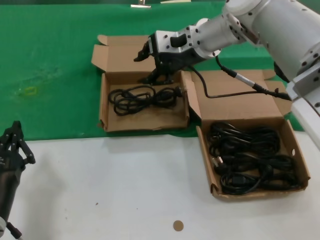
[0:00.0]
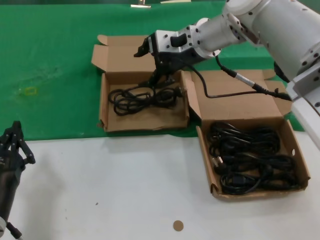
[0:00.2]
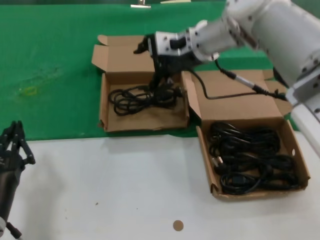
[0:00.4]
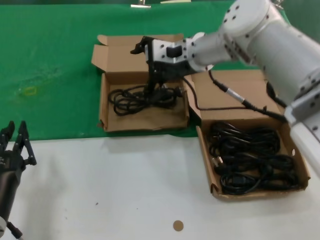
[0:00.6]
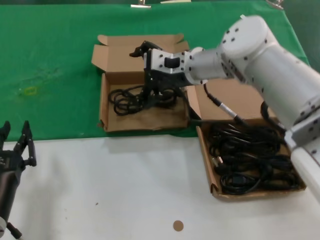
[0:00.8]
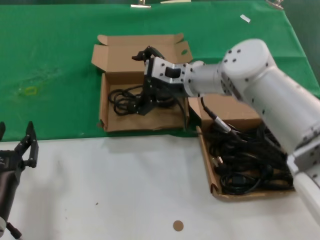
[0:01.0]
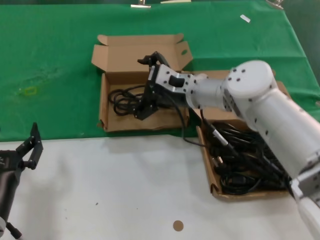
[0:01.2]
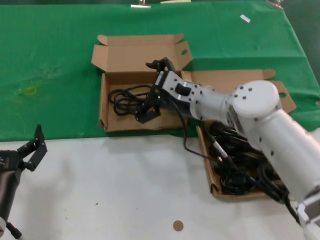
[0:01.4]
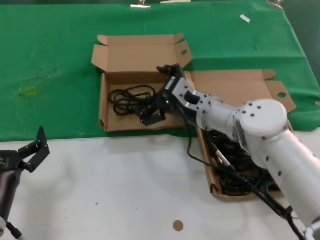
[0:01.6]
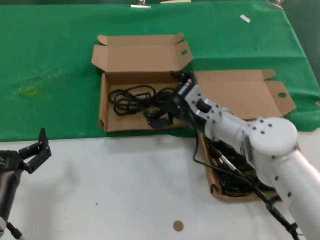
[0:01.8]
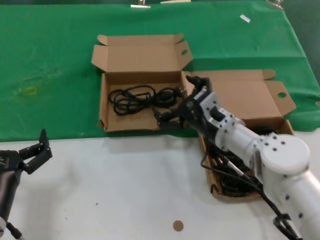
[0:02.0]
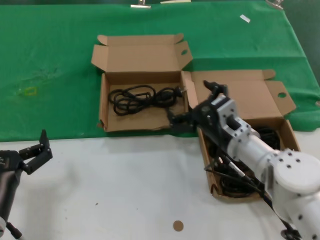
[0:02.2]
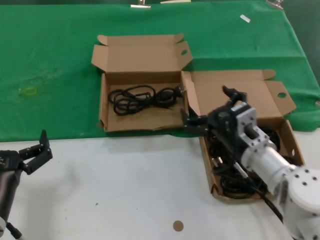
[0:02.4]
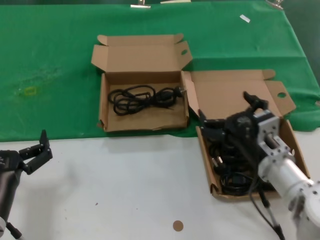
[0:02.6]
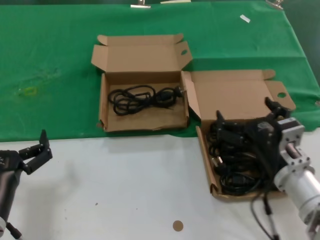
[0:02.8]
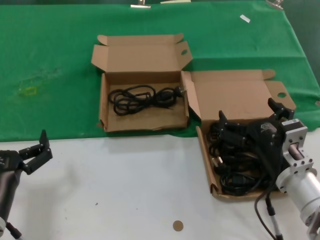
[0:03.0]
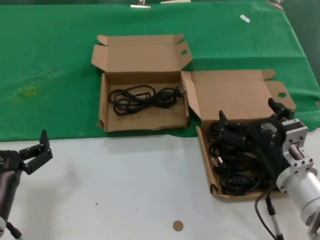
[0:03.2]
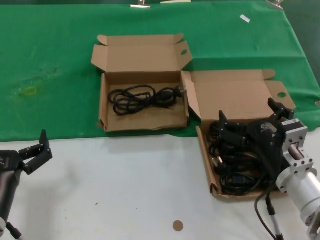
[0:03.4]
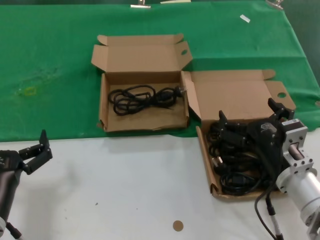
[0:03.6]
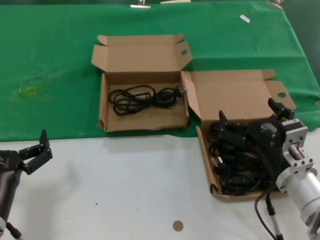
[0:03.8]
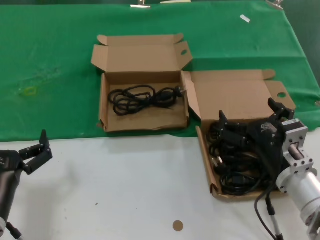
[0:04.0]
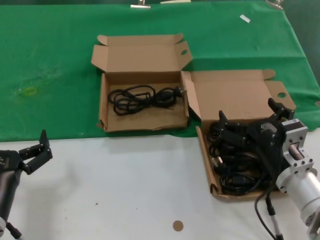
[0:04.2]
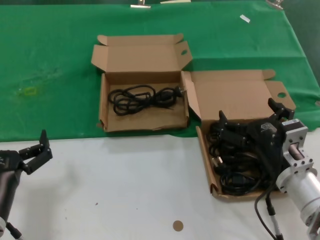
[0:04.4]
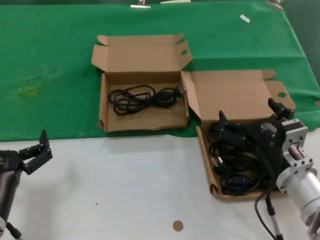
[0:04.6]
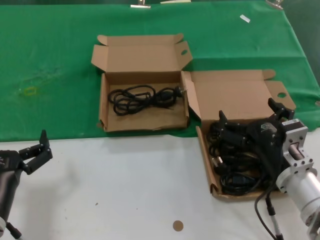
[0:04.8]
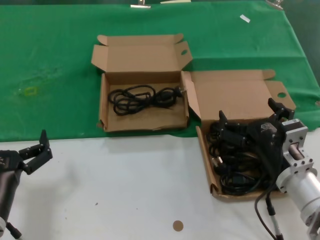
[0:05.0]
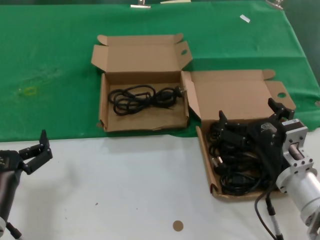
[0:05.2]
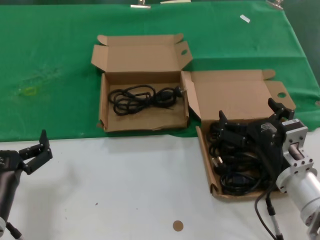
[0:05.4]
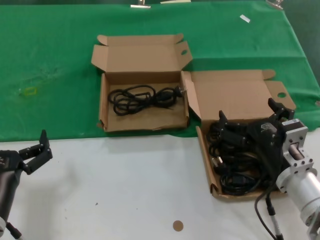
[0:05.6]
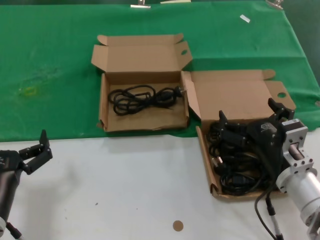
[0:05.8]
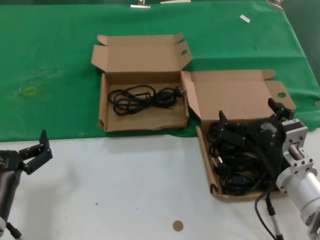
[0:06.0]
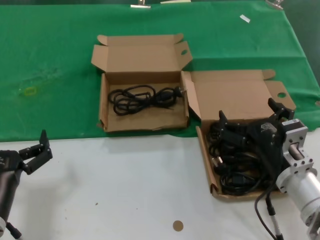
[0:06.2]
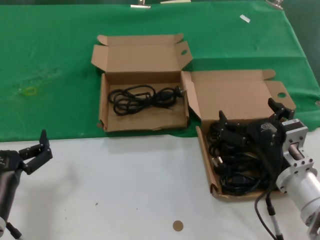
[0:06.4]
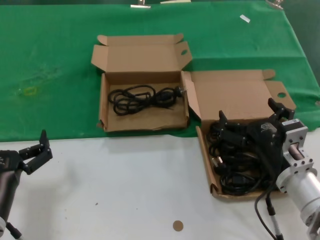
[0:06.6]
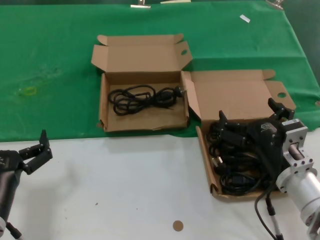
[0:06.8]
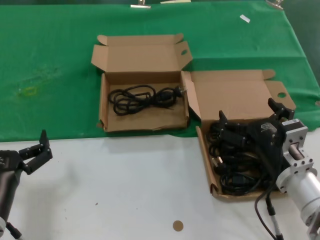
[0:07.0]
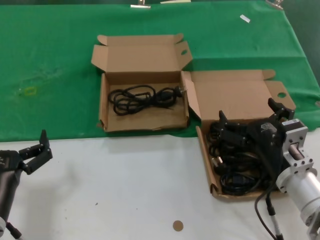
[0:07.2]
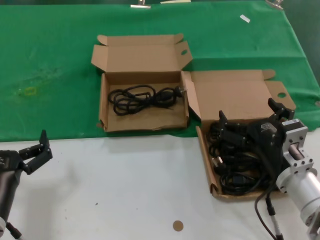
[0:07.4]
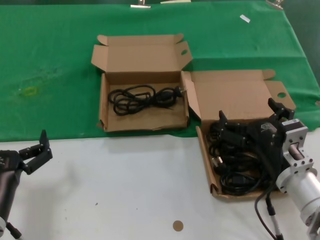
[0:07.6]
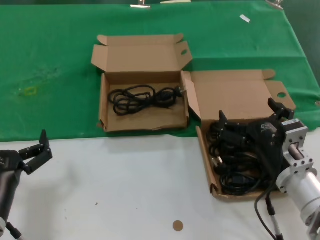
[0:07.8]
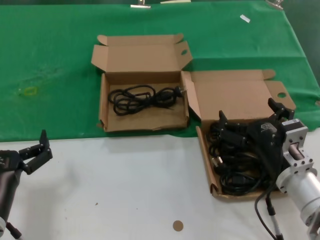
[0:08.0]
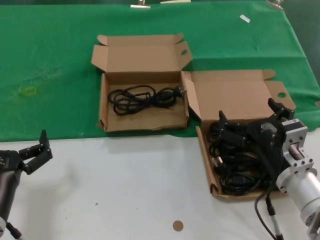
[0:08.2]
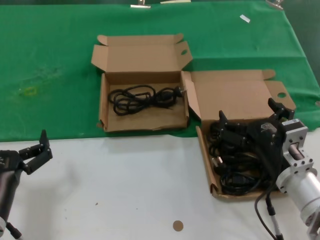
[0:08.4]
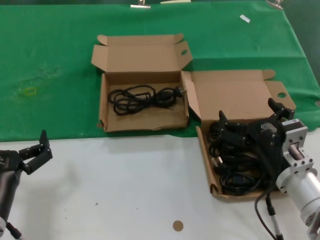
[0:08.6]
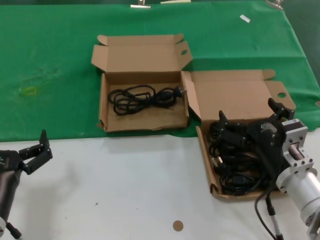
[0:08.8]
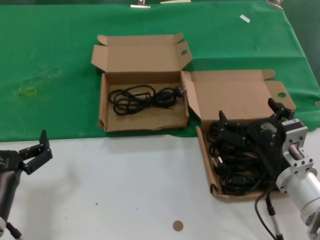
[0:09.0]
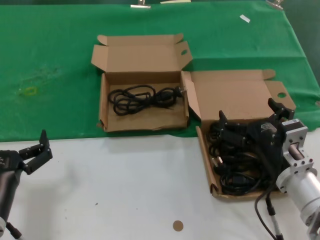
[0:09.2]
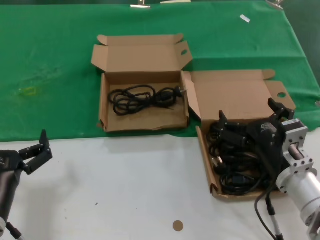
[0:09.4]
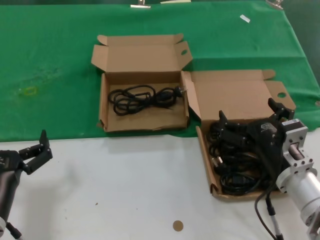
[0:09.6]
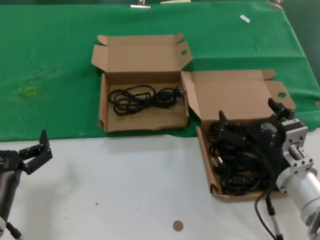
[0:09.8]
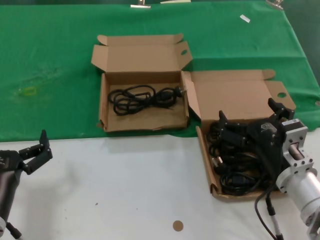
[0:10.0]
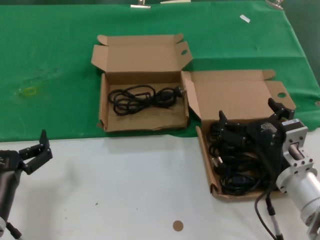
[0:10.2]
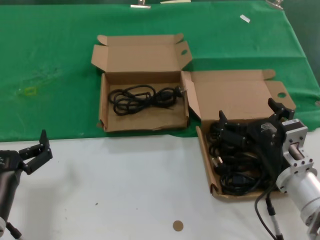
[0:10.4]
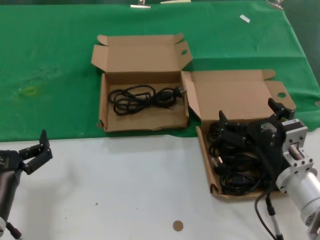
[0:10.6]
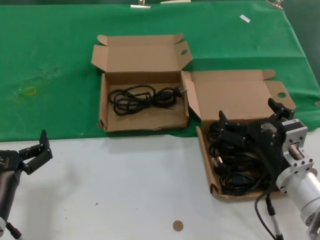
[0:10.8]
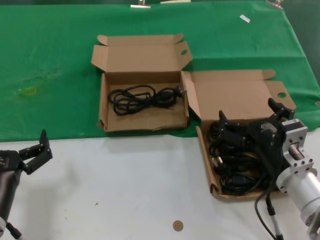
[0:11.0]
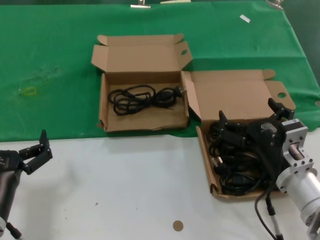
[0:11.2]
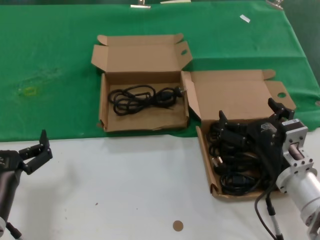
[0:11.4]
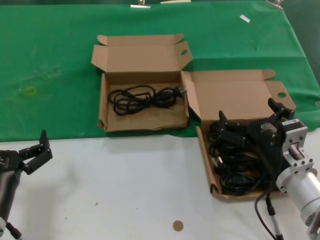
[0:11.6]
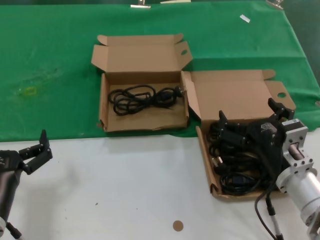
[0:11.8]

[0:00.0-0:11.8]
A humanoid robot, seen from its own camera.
Task of the whole recording: take the parts from the box containing them and put them into an empty box.
0:00.0 to 0:01.4: The right hand moves downward, about 15 cm.
0:01.4 to 0:03.0: The right hand moves backward, to the right and downward, approximately 25 cm.
0:03.0 to 0:11.8: Both hands stay put.
